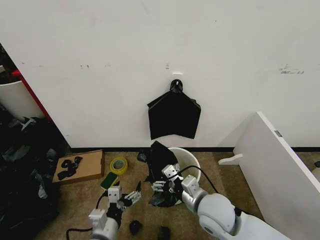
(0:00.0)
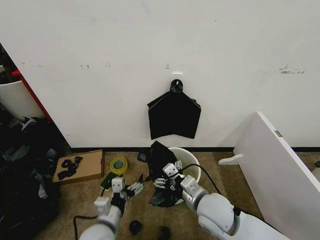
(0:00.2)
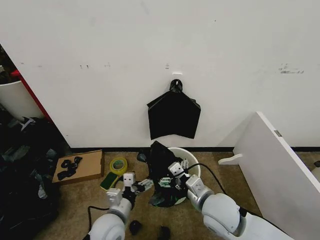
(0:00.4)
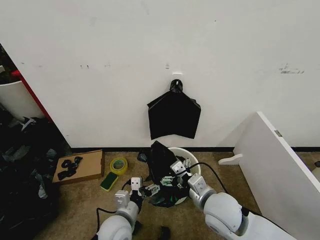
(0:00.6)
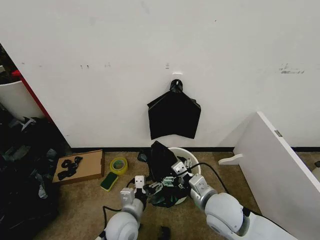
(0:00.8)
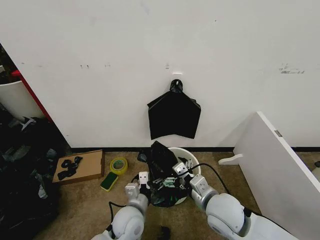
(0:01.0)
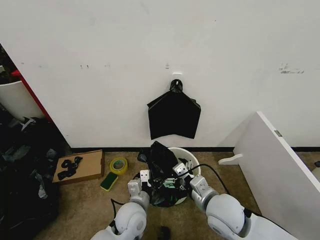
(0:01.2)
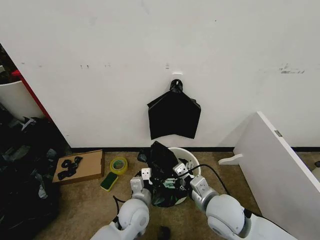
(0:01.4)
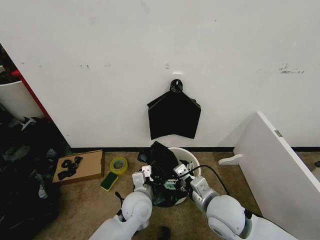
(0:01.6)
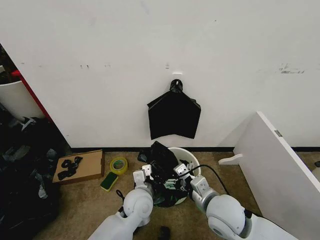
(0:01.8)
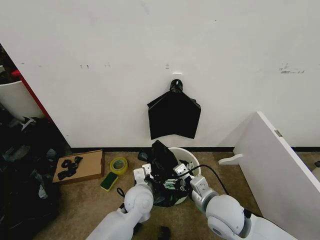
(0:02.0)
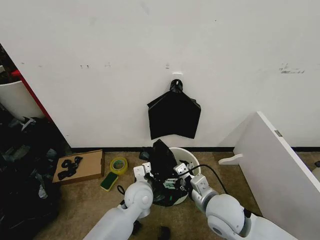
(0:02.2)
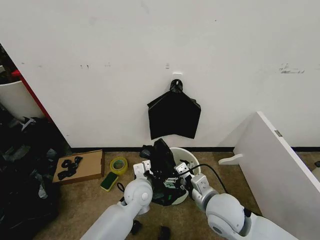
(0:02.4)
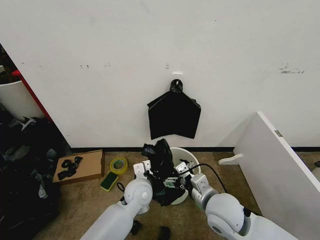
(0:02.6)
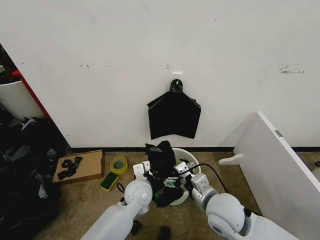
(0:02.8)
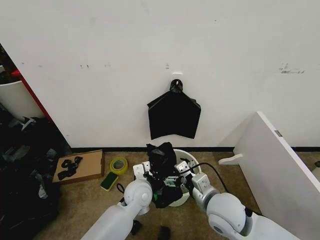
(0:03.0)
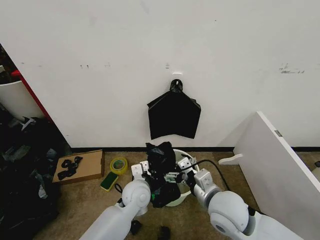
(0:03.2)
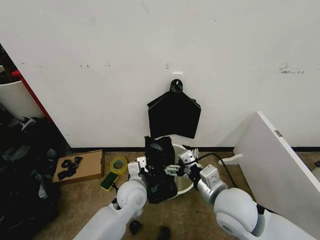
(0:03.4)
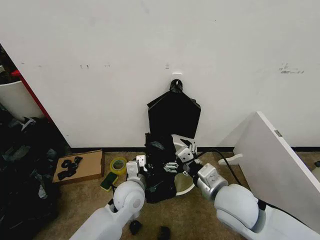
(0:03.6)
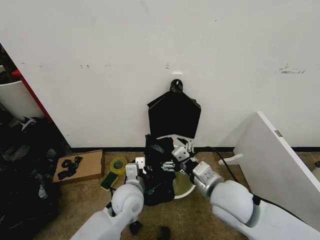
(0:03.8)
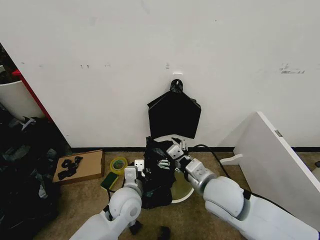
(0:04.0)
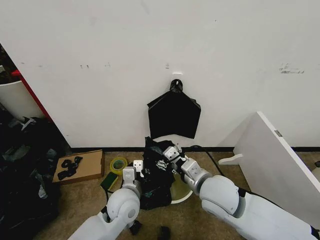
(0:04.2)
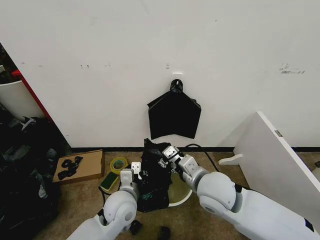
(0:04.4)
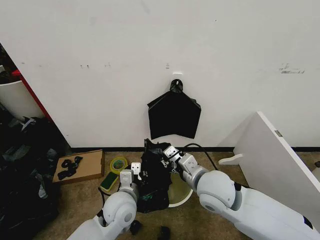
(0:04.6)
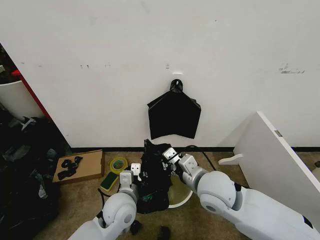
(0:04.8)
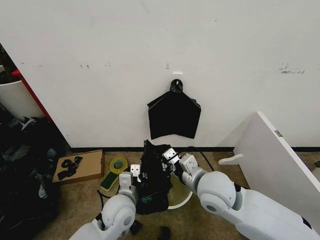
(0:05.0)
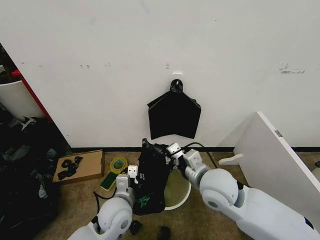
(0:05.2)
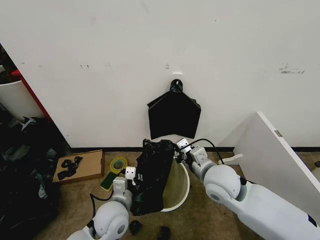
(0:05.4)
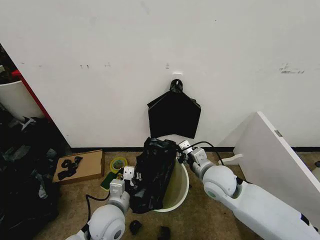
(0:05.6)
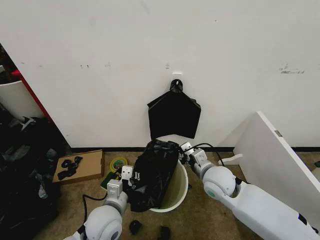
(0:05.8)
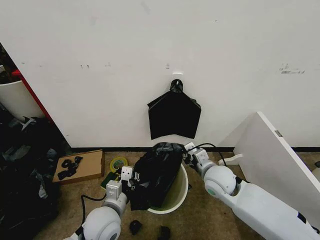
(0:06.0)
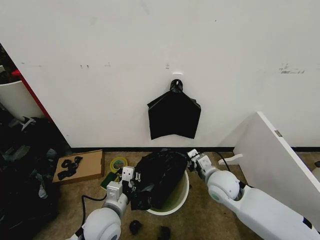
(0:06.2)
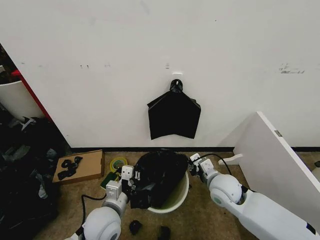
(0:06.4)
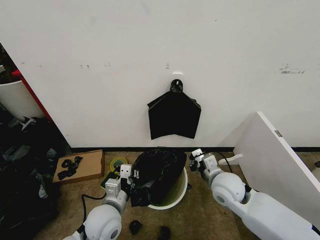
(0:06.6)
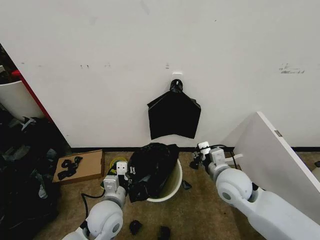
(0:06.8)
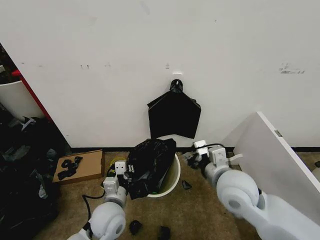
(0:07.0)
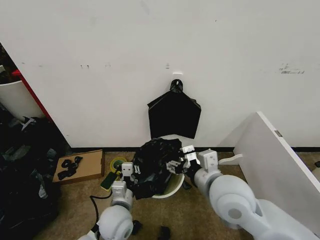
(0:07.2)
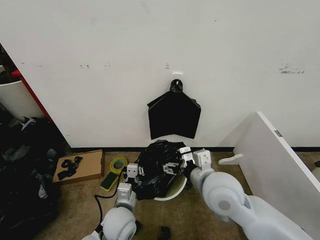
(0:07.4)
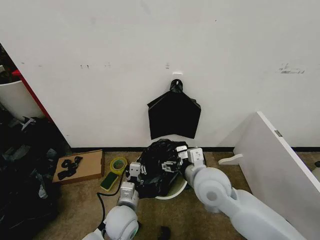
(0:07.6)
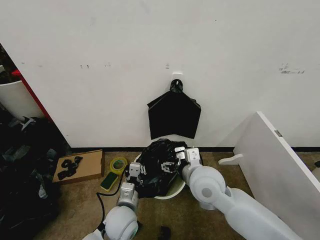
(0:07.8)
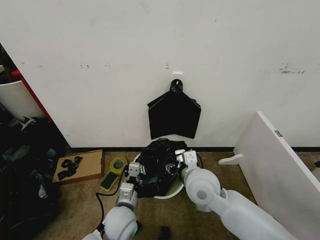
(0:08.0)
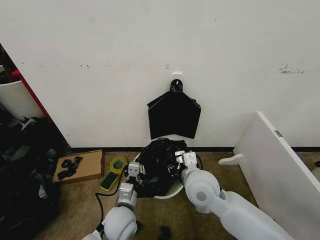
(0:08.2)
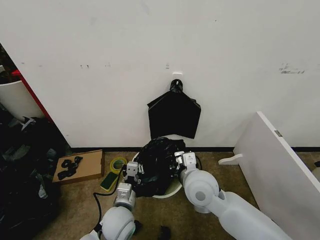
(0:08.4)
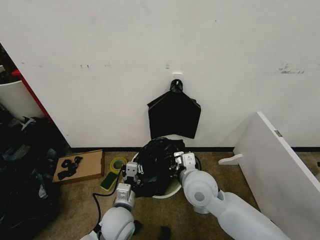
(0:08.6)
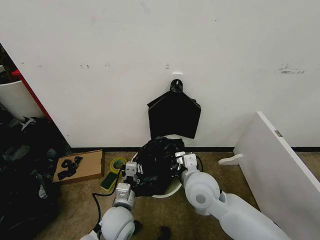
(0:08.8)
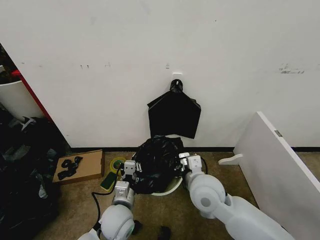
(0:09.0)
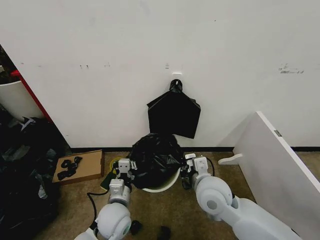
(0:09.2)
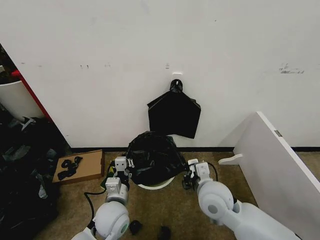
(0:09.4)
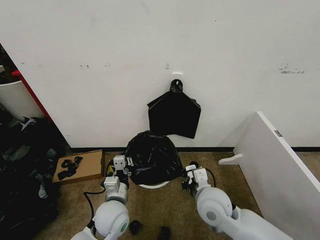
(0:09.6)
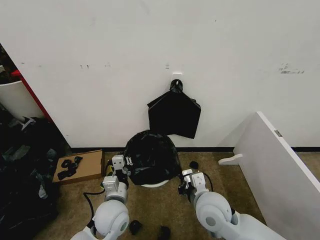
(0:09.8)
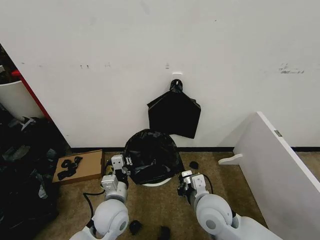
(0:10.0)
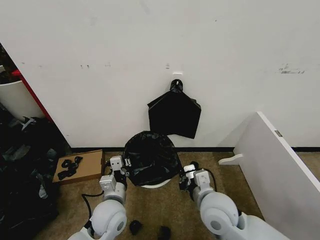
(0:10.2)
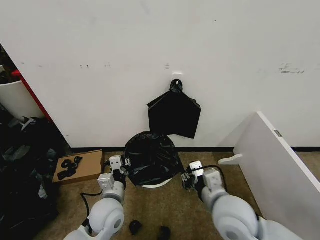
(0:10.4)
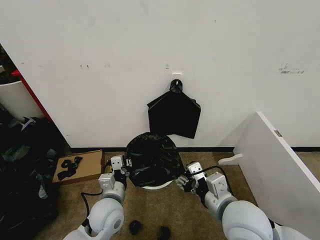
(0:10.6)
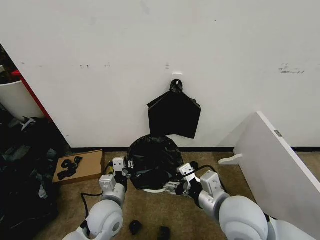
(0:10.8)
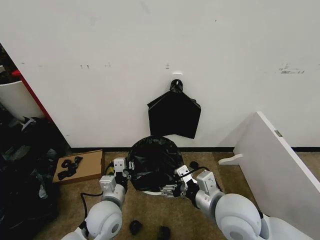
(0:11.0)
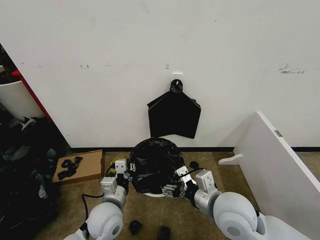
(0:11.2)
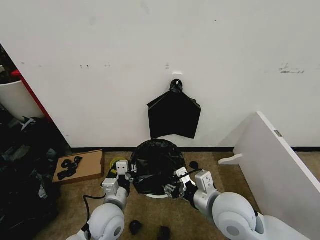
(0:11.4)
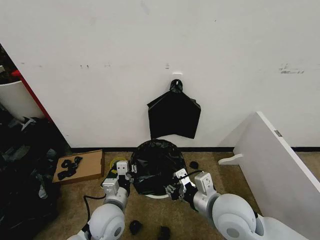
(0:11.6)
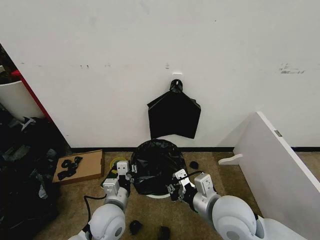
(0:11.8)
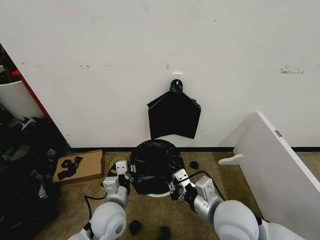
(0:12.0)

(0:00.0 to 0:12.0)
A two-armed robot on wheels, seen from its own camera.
Task of the whole recording: Place the garbage bag over the trash bin.
0:00.0 - 0:01.6: The left gripper shifts some 15 cm forward and to the right.
0:01.6 - 0:03.0: The left gripper closes.
0:03.0 - 0:04.4: The left gripper heads backward, covering approximately 5 cm, while the right gripper moves some 5 cm, and closes.
0:04.4 - 0:06.0: The left gripper ends up some 5 cm from where it was. Meanwhile the right gripper goes roughly 10 cm downward, forward and to the right, and closes its fingers.
0:06.0 - 0:07.6: The right gripper goes about 10 cm upward, to the left and backward, and opens its fingers. The left gripper ends up some 5 cm from where it was.
0:07.6 - 0:09.0: The right gripper closes.
0:09.0 - 0:10.4: The right gripper heads backward, covering some 5 cm.
0:10.4 - 0:12.0: The right gripper opens, then closes once more.

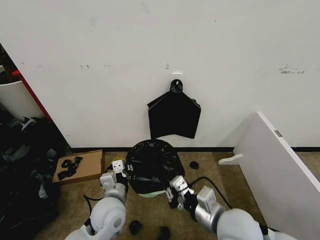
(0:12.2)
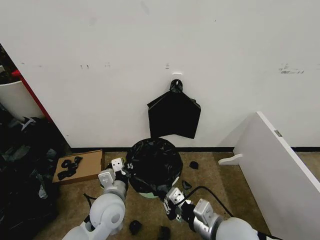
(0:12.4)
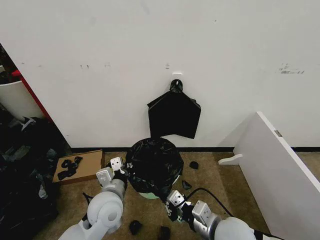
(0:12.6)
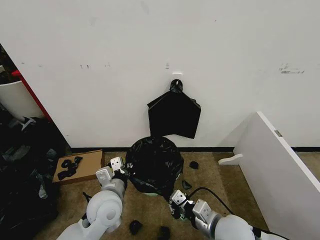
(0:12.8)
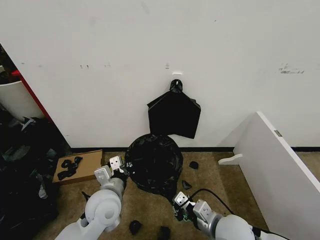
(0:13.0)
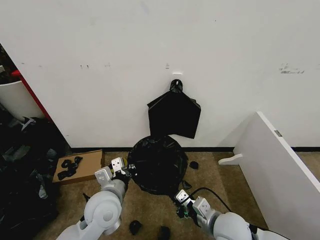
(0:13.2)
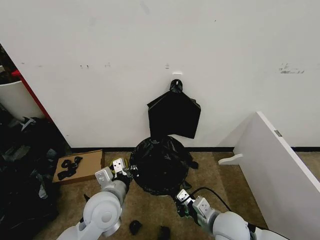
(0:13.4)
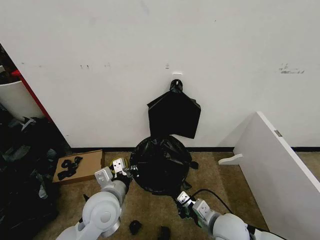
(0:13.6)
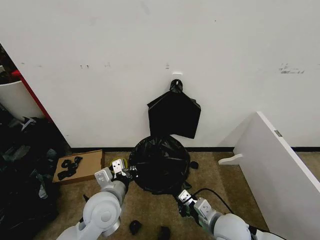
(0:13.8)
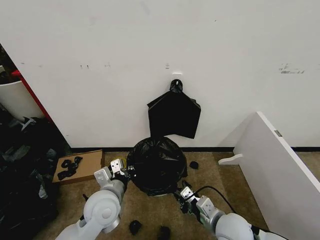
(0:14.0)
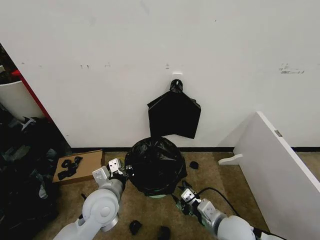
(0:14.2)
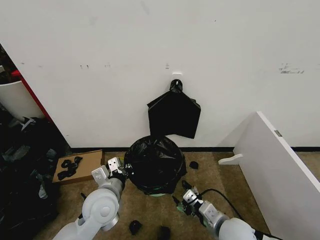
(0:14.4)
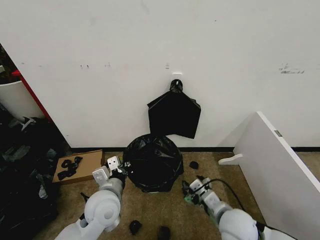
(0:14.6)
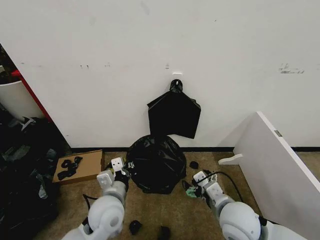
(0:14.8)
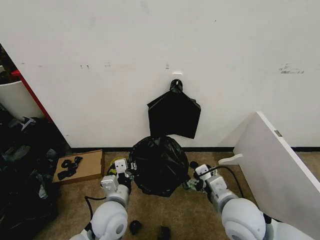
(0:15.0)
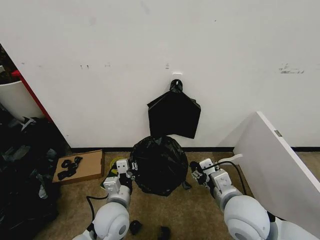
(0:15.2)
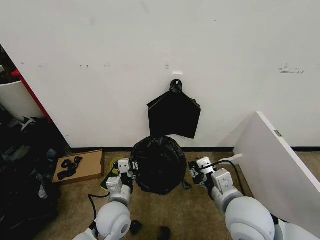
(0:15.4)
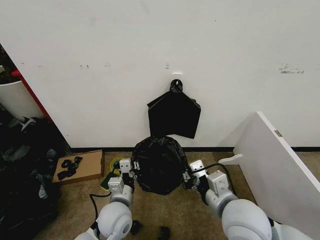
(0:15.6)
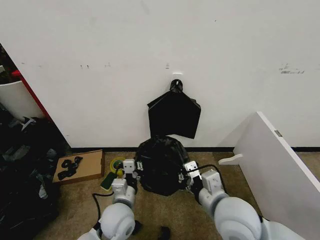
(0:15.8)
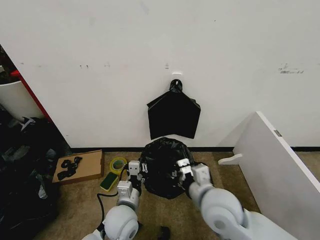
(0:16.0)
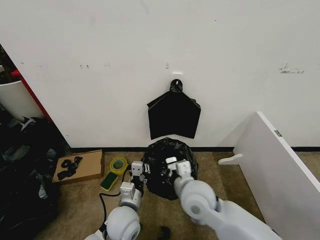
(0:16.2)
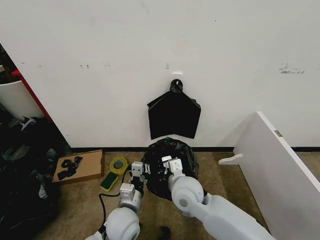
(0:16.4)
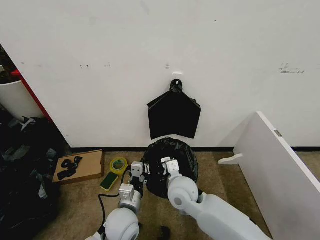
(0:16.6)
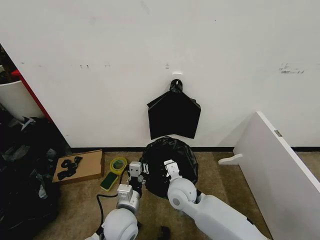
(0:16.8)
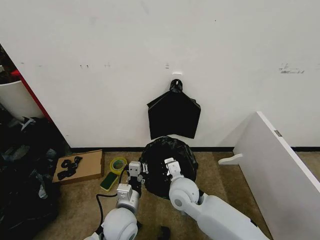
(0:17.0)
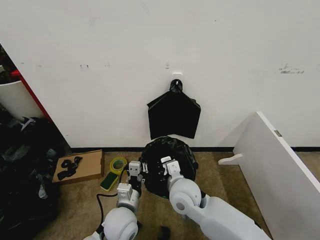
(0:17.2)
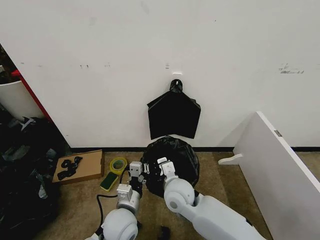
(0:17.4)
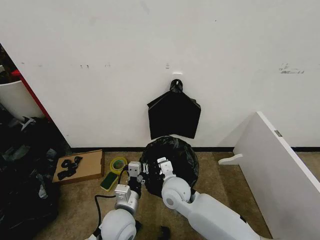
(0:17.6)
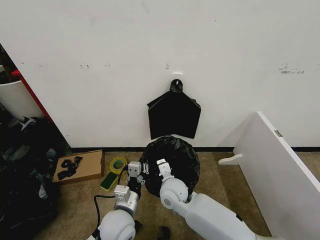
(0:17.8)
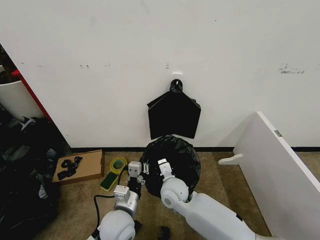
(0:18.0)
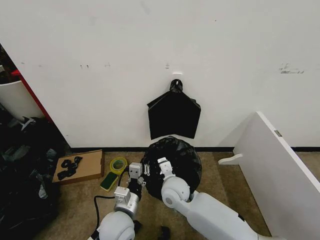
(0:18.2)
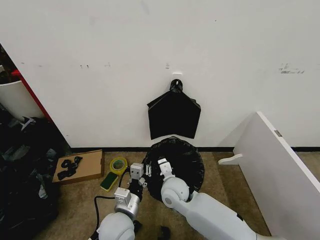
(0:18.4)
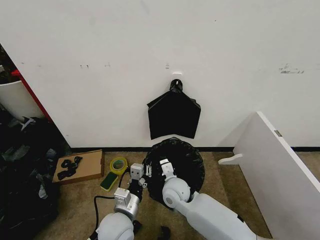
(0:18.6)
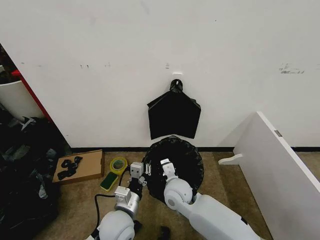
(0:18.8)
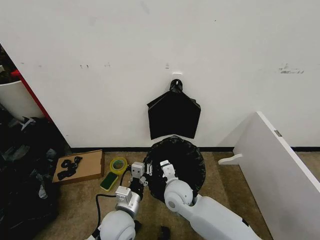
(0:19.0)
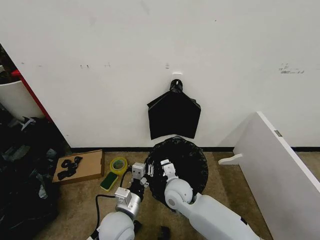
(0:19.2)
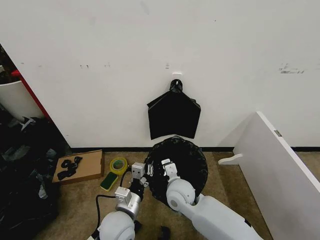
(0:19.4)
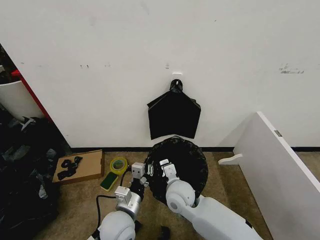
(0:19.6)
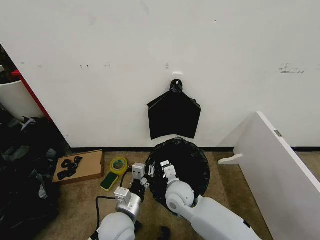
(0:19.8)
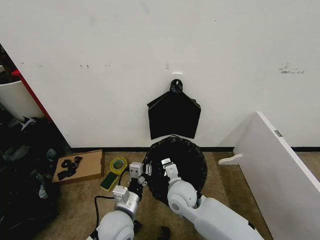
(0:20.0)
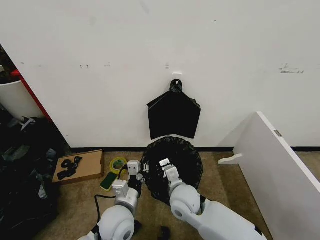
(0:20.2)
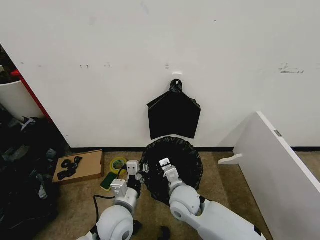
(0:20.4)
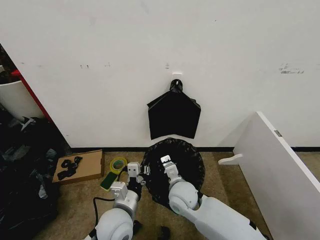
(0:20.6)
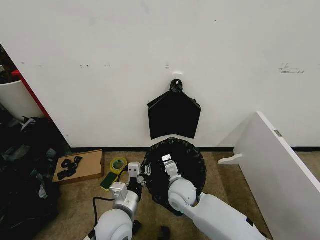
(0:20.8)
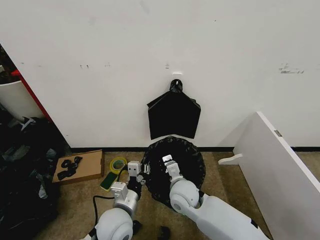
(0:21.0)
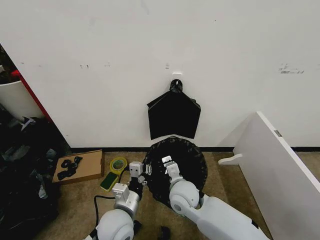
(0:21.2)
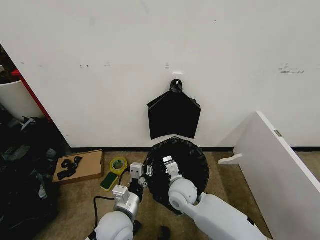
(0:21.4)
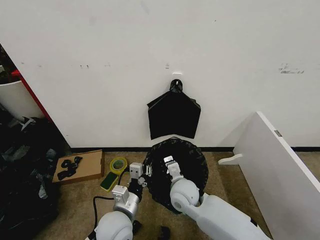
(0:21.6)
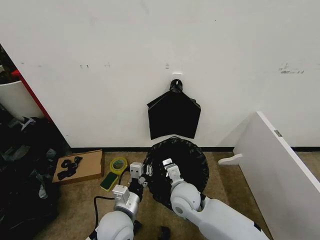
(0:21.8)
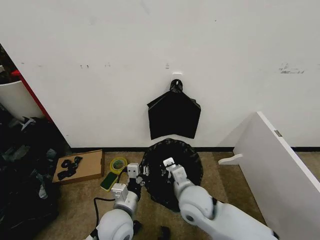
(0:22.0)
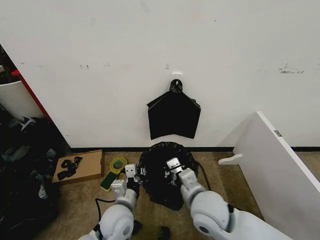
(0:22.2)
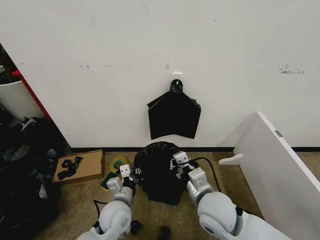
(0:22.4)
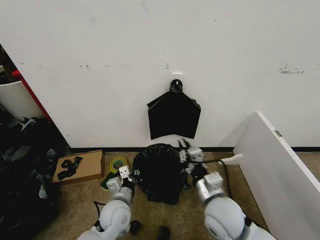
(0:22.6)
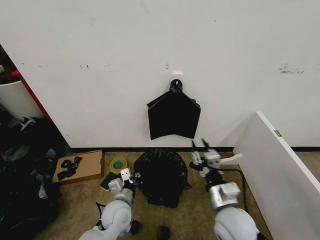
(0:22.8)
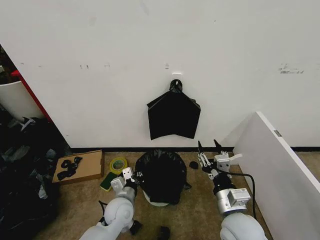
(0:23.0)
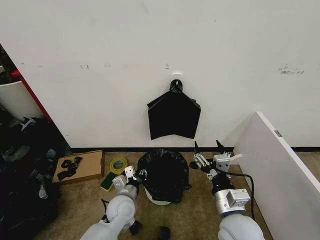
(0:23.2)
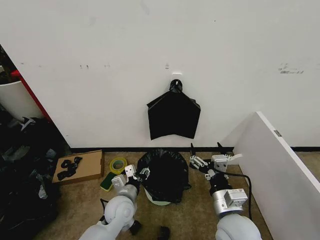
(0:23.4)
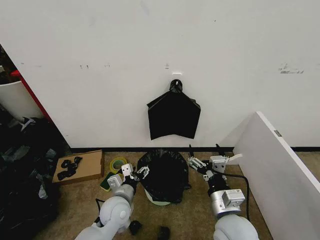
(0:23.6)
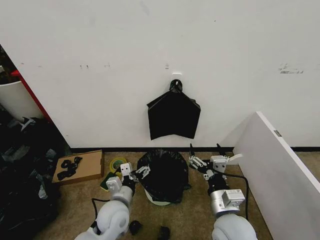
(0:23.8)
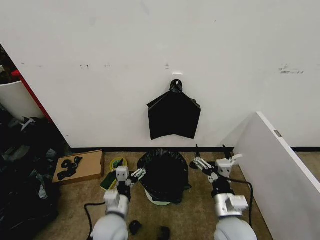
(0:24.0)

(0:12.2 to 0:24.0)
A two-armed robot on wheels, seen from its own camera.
Task of the whole recording: Place the garbage bag over the trash bin.
0:12.2 - 0:13.6: The right gripper shifts roughly 10 cm downward.
0:13.6 - 0:15.2: The left gripper heads downward, covering about 5 cm. The right gripper is displaced upward by roughly 10 cm, and opens.
0:15.2 - 0:16.6: The right gripper goes approximately 20 cm to the left, forward and downward, and closes.
0:16.6 - 0:21.0: The grippers move only a little.
0:21.0 - 0:22.6: The left gripper is displaced downward by approximately 5 cm; the right gripper is displaced to the right, backward and upward by roughly 15 cm.
0:22.6 - 0:24.0: The right gripper ends up some 5 cm from where it was, and opens up. Meanwhile the left gripper shifts by about 5 cm, and opens.
